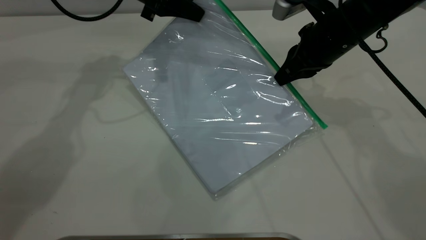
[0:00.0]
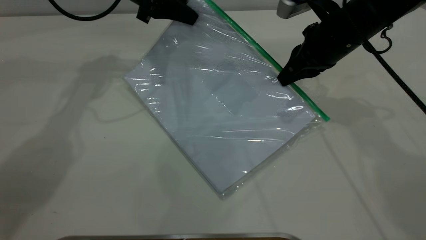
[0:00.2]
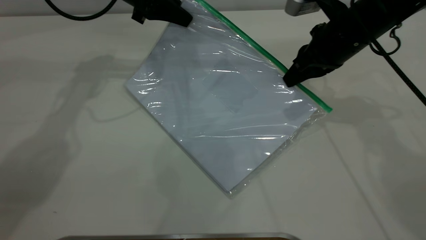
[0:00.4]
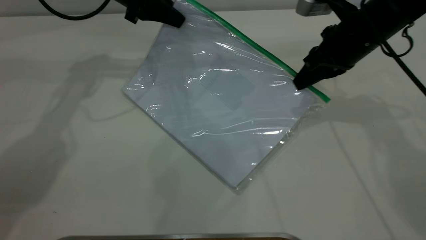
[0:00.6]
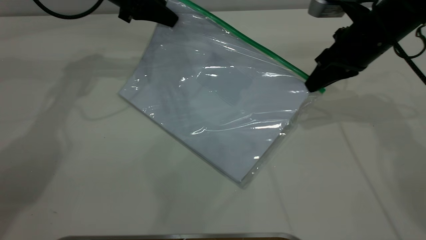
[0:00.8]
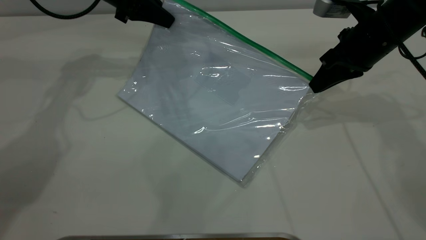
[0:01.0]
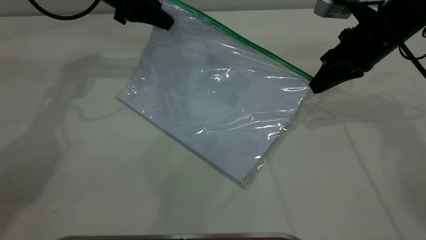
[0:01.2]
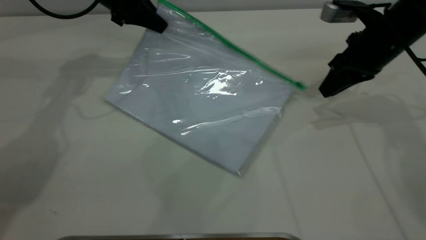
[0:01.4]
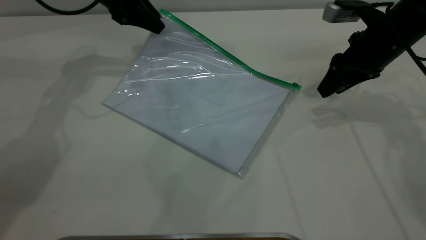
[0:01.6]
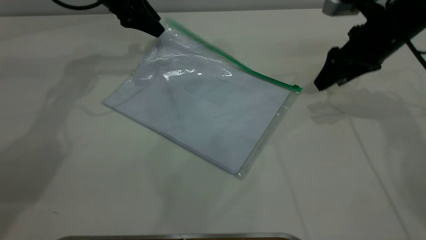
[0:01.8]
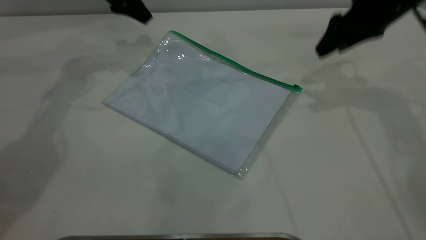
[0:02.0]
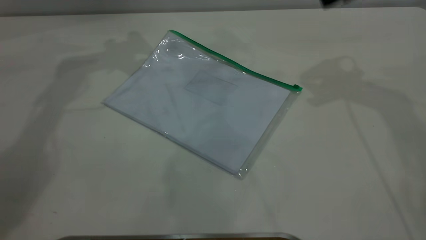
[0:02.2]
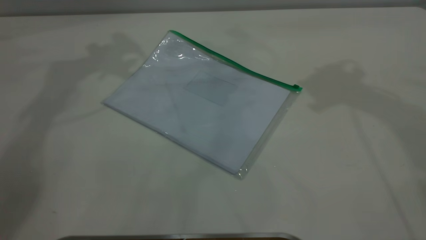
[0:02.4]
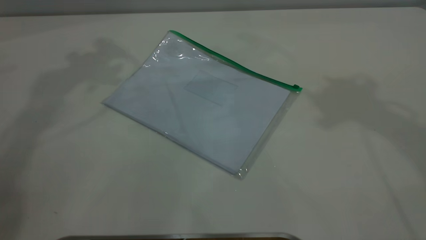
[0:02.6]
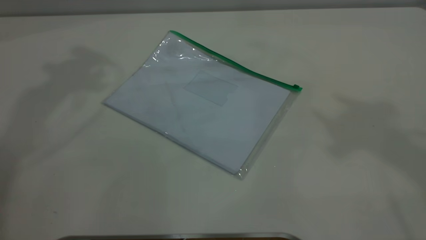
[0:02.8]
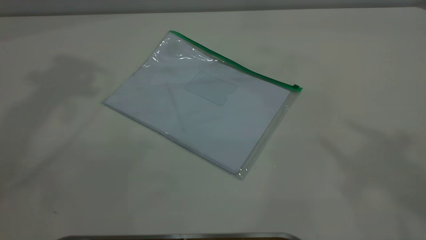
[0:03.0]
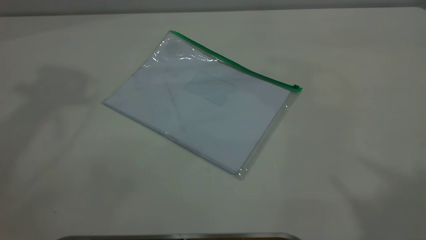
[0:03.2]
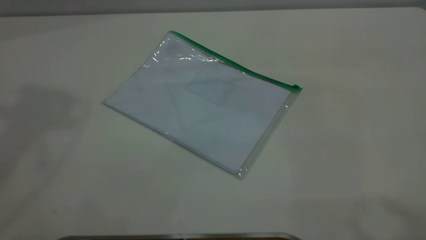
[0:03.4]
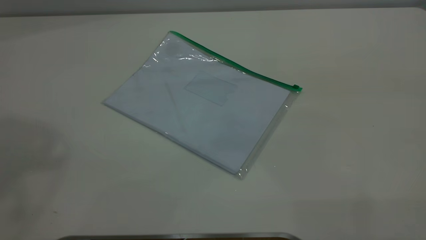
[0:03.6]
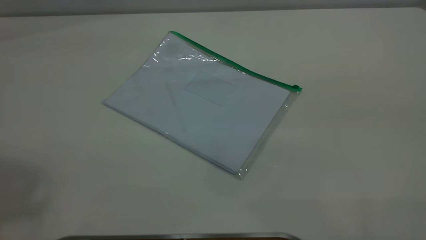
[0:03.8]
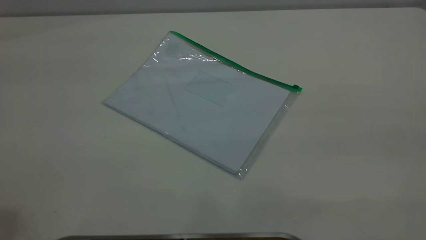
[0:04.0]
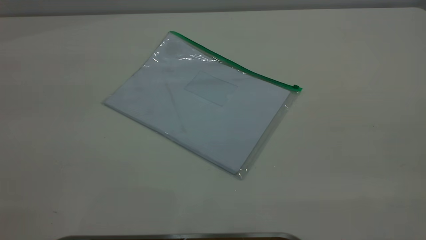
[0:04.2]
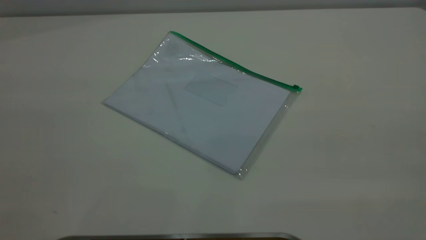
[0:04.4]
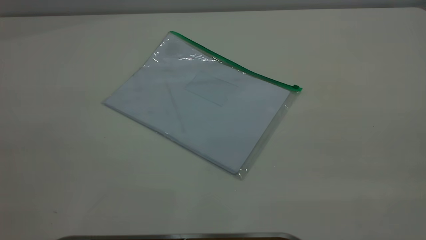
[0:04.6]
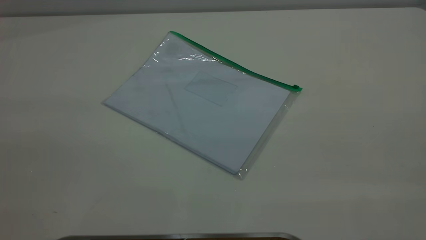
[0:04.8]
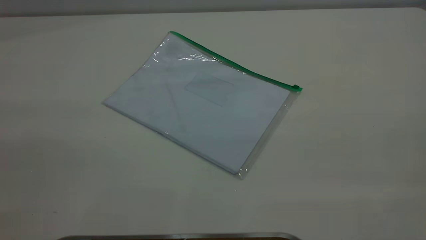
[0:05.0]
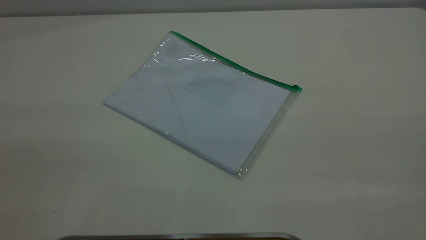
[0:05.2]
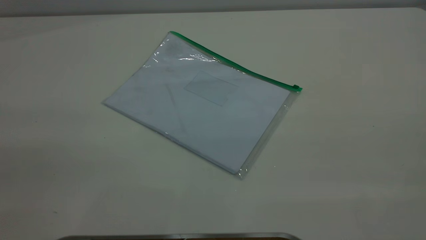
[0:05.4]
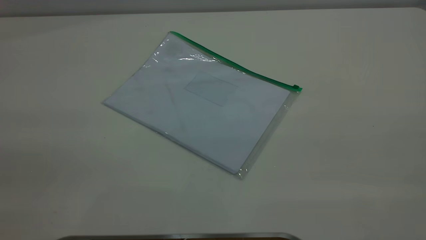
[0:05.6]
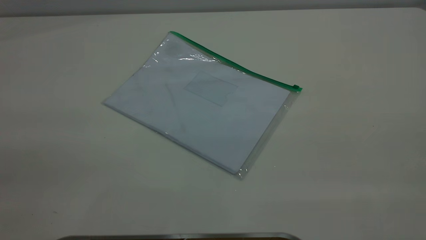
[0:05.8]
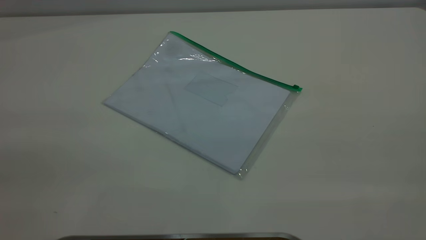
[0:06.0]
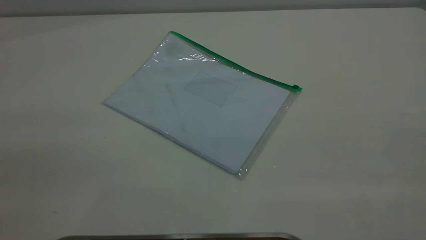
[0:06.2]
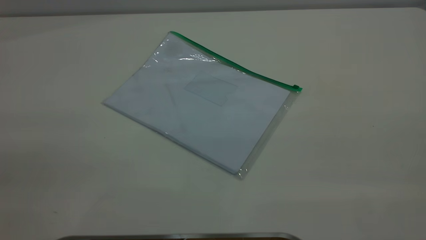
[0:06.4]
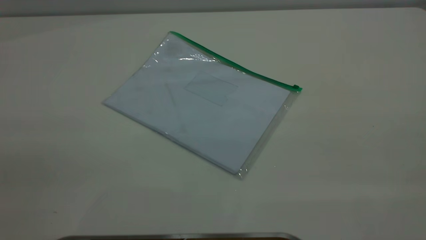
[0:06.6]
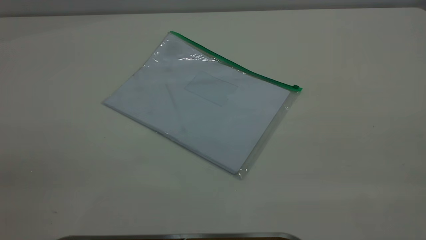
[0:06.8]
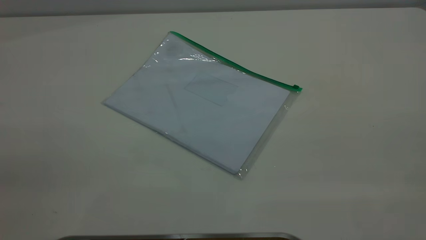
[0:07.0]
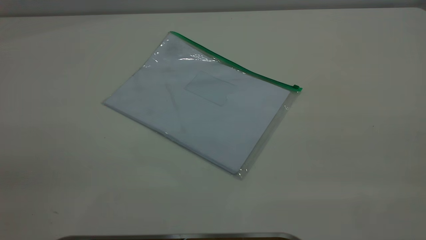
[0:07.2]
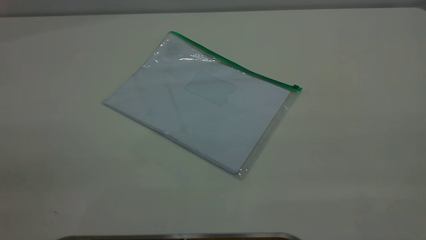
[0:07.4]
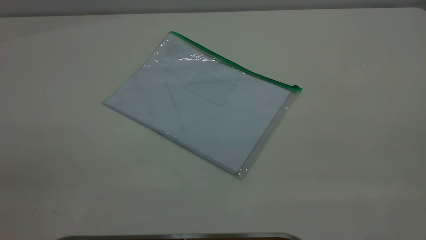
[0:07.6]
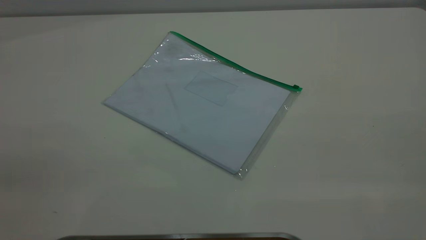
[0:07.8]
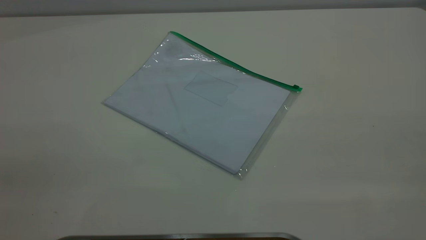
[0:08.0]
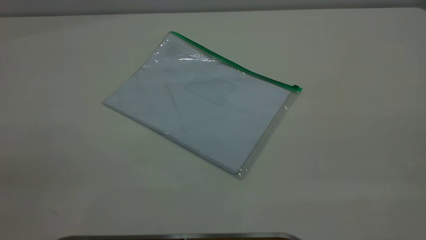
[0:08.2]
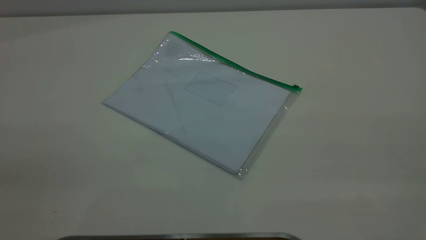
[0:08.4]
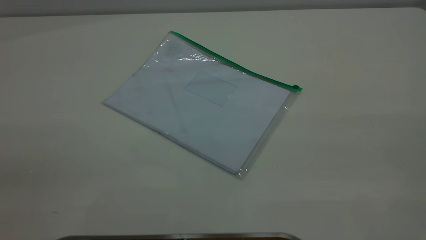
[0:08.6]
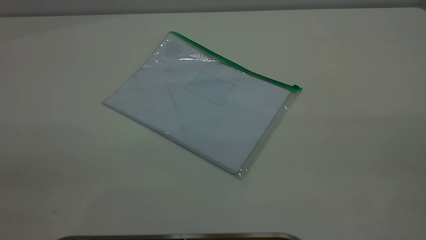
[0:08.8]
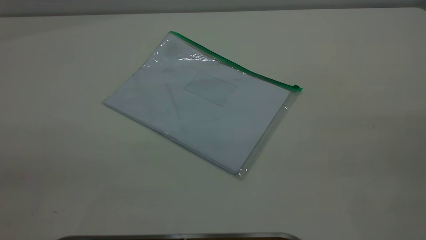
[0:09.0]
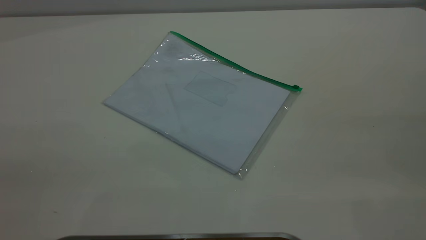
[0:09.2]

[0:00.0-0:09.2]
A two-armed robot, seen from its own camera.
0:00.0 to 0:01.6: The left gripper moves to the left, about 5 cm, and opens up. The right gripper shifts approximately 5 cm to the right, and opens up.
0:01.6 to 0:03.0: The left gripper moves upward, approximately 35 cm, and opens; the right gripper shifts roughly 50 cm upward and backward.
